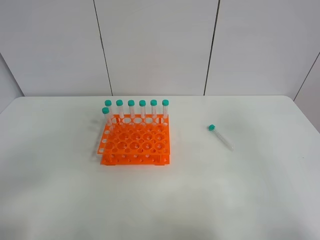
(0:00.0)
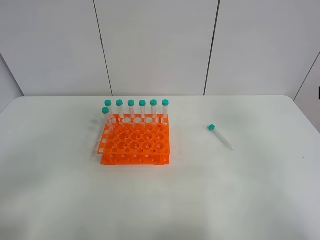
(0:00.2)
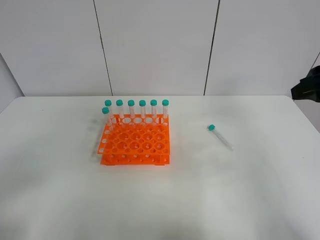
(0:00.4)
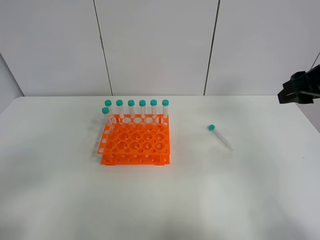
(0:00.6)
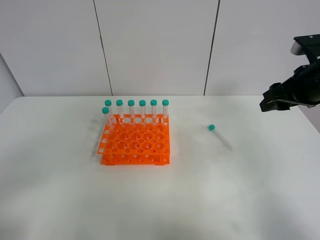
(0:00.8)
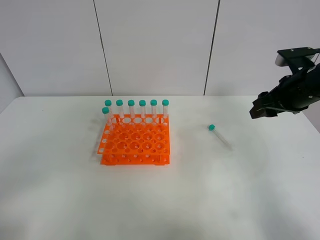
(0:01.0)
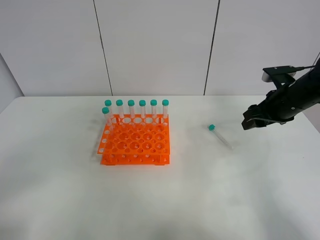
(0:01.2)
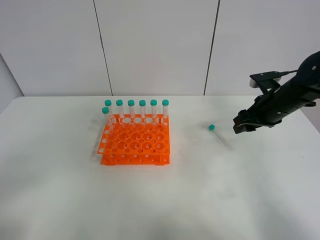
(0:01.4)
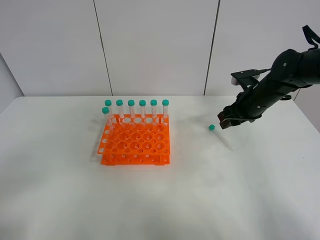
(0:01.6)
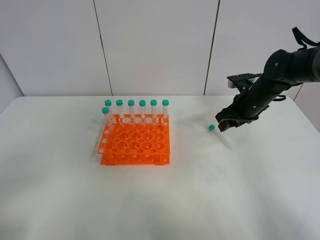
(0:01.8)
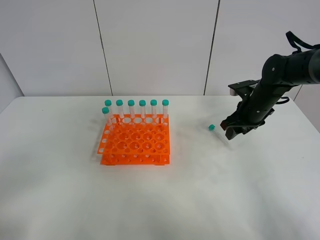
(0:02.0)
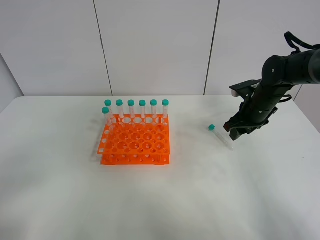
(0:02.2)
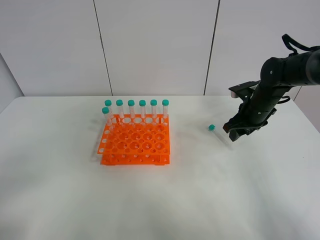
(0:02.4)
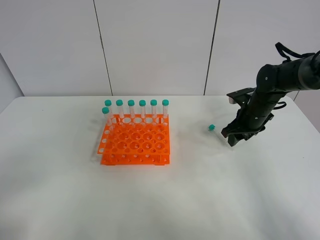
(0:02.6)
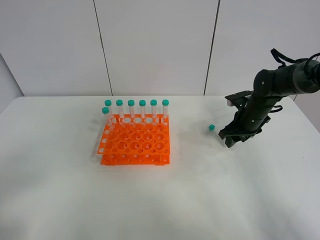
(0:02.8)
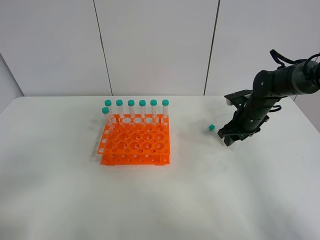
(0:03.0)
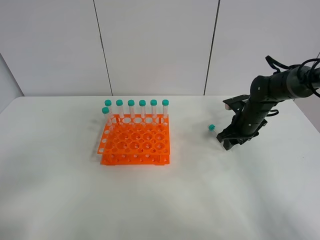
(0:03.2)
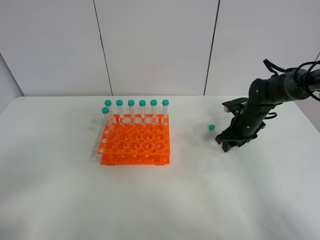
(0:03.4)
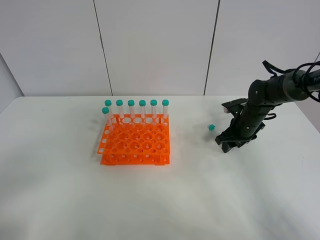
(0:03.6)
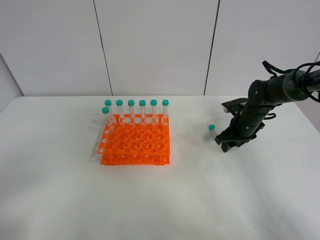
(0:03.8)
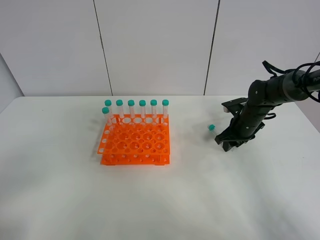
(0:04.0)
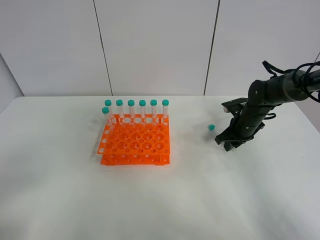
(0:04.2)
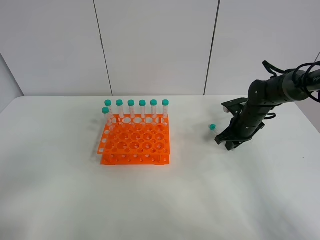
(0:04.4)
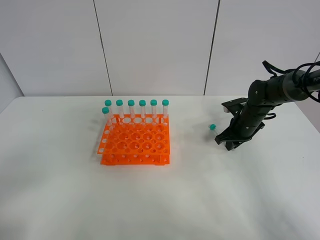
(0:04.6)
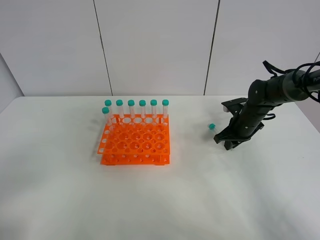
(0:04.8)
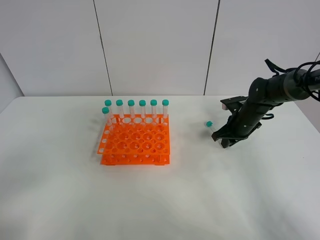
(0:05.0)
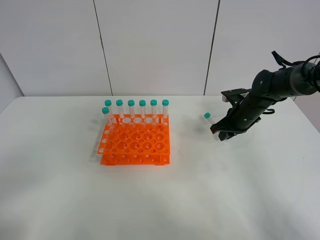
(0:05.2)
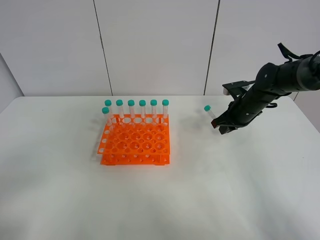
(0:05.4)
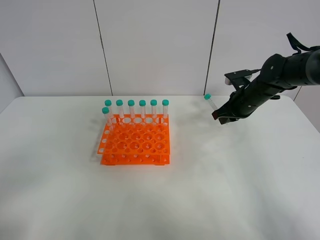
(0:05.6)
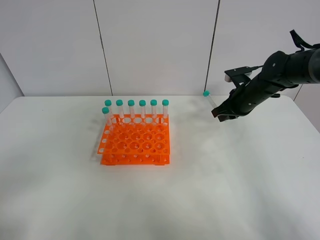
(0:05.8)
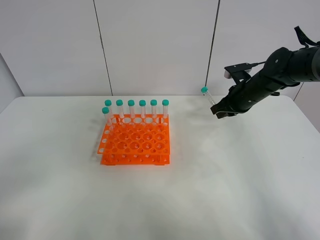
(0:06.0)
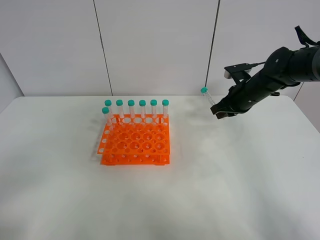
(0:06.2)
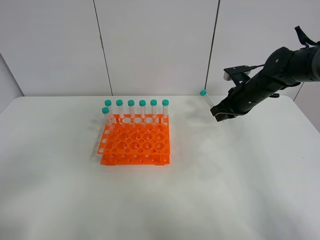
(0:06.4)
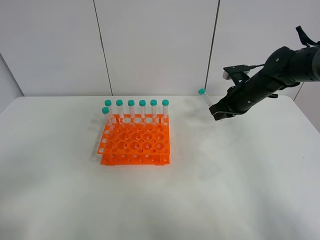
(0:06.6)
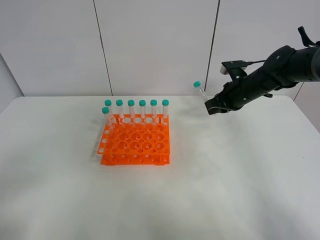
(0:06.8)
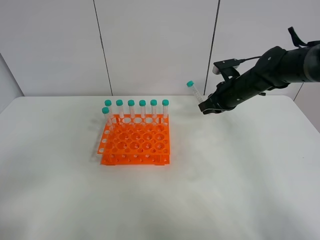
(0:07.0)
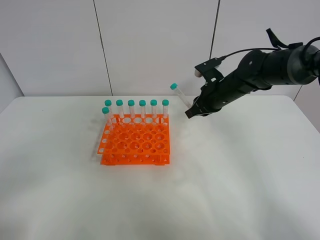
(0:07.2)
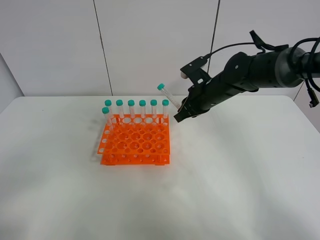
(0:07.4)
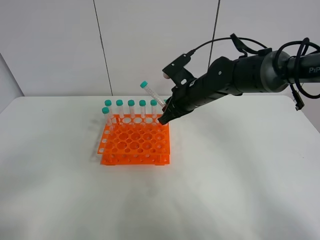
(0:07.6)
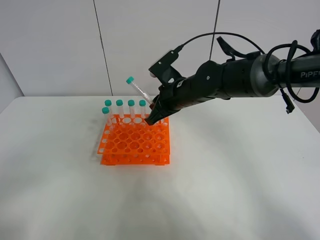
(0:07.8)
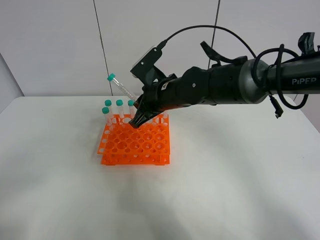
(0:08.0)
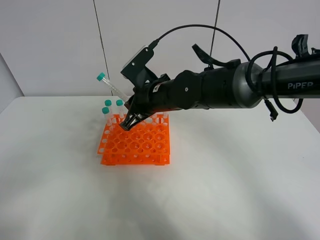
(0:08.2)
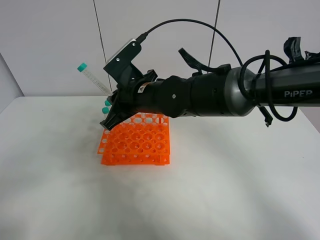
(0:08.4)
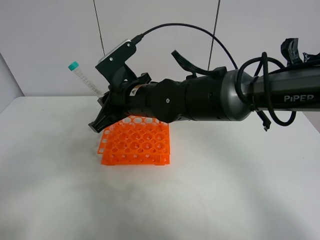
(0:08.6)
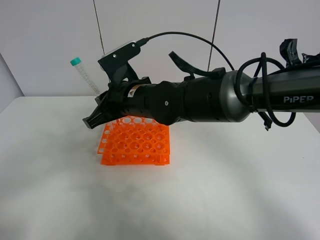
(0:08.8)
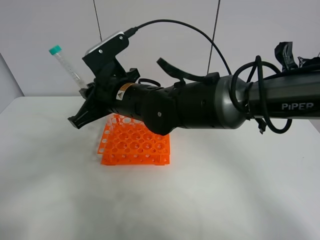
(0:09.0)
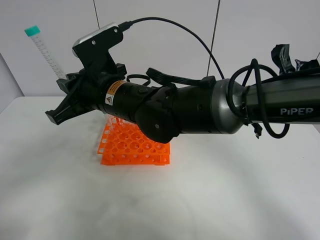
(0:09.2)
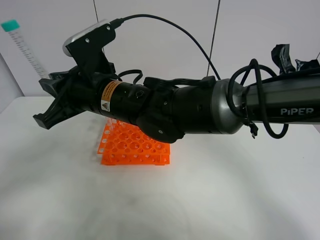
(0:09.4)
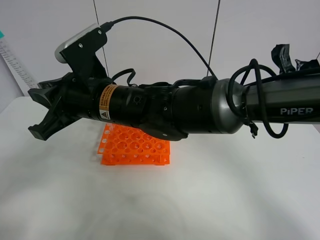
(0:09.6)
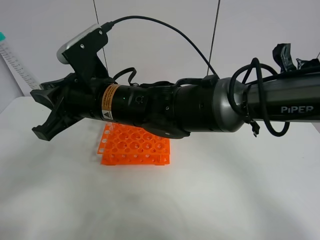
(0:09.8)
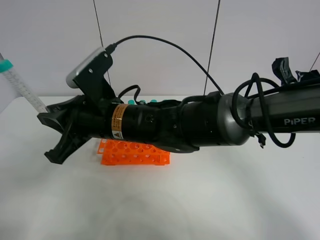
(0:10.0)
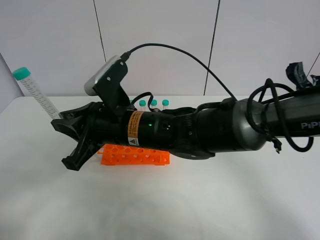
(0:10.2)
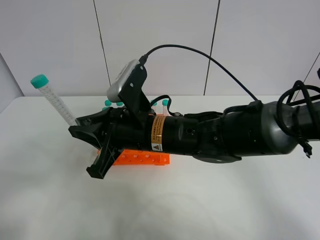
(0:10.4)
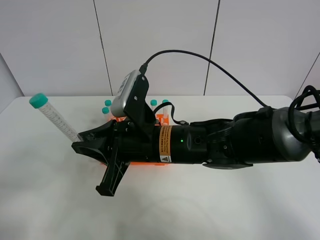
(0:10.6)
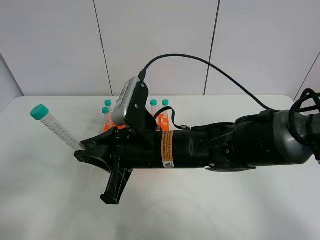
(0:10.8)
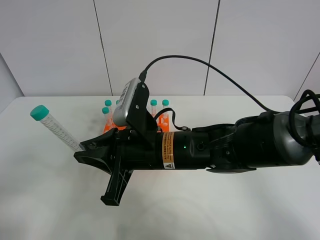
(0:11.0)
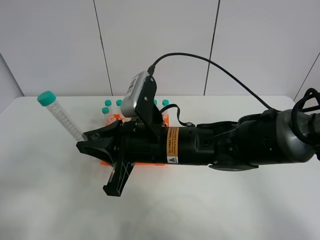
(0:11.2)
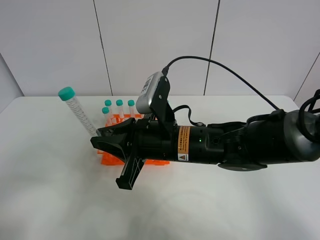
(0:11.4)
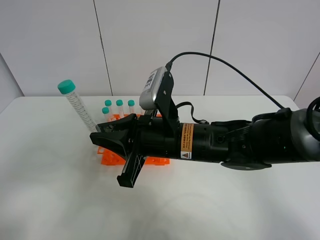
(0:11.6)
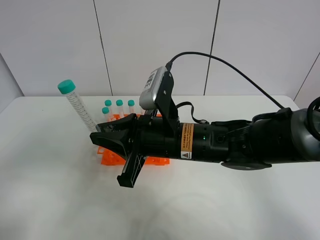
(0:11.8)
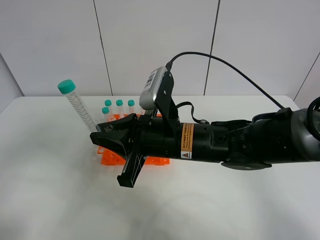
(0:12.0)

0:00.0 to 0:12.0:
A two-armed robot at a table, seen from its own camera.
Task of the whole recording: Put the test tube on the table back onto the test tube rack.
Step, 0:00.0 to 0:06.0: Pick up the test tube with the right gripper.
0:00.0 to 0:01.6: The right gripper shifts about 30 cm forward and downward.
0:01.6 to 0:03.0: The right gripper moves downward, approximately 5 cm.
0:03.0 to 0:04.4: The right gripper closes up.
0:04.4 to 0:06.0: The right gripper heads upward, covering some 10 cm.
0:06.0 to 0:07.6: The right gripper travels to the left by approximately 15 cm.
0:07.6 to 0:09.0: The right gripper goes about 15 cm to the left and backward.
0:09.0 to 0:10.4: The right gripper goes roughly 5 cm backward.
0:10.4 to 0:12.0: The left gripper heads upward and forward, covering about 10 cm.

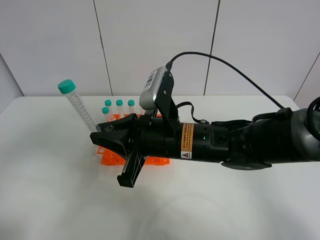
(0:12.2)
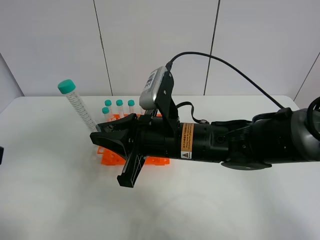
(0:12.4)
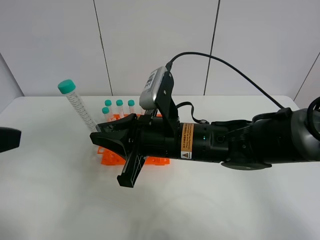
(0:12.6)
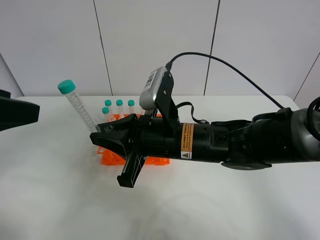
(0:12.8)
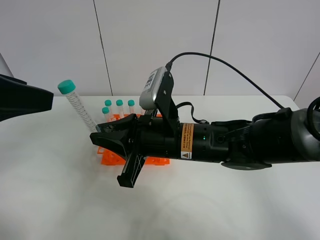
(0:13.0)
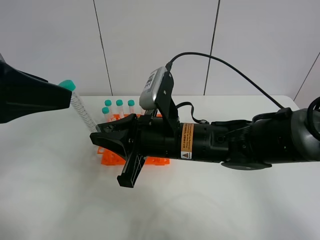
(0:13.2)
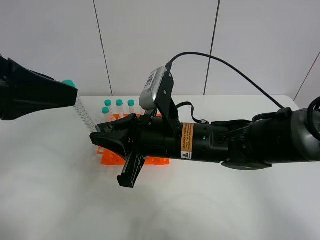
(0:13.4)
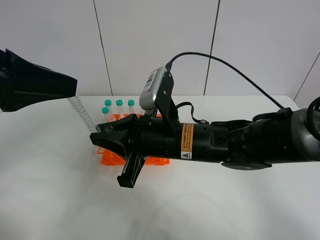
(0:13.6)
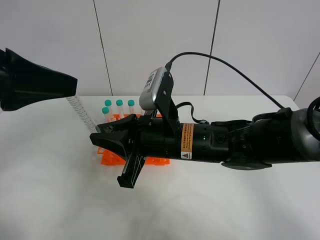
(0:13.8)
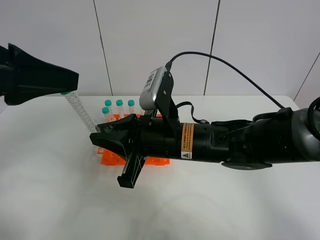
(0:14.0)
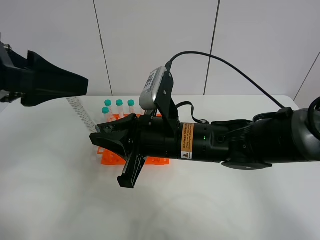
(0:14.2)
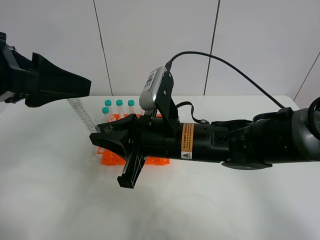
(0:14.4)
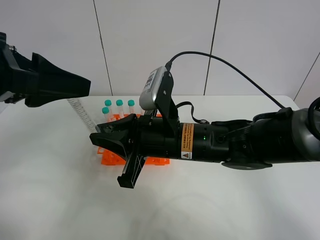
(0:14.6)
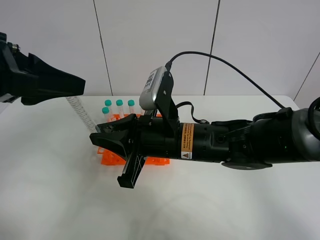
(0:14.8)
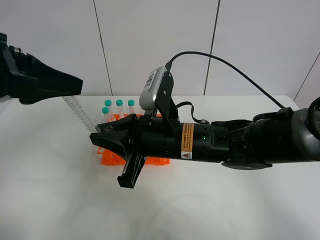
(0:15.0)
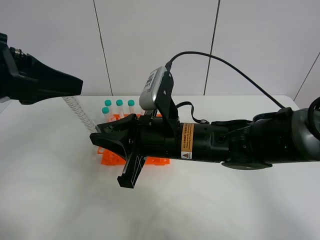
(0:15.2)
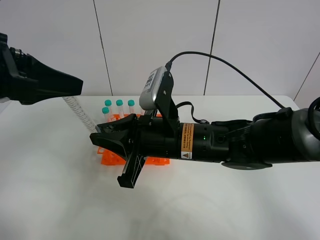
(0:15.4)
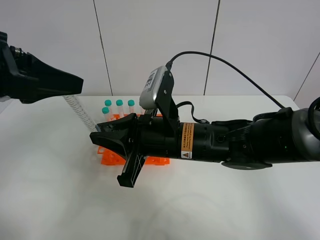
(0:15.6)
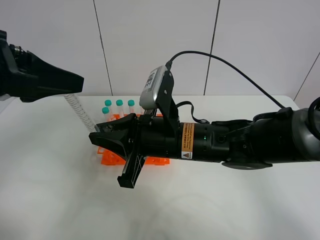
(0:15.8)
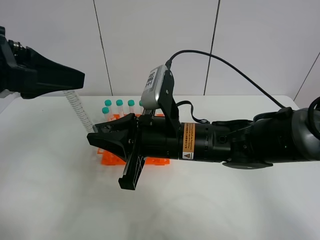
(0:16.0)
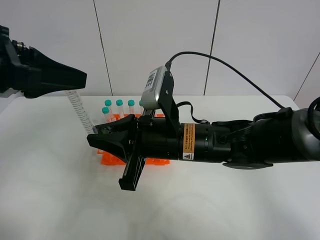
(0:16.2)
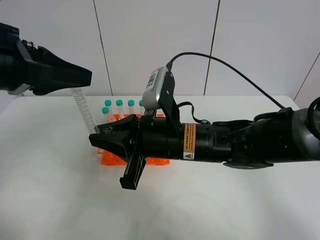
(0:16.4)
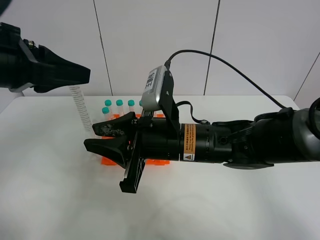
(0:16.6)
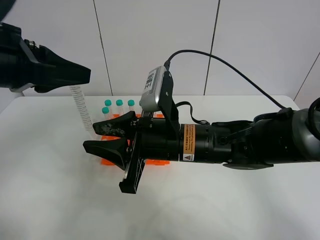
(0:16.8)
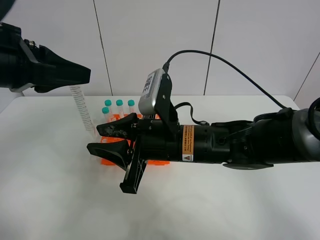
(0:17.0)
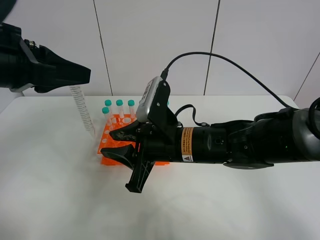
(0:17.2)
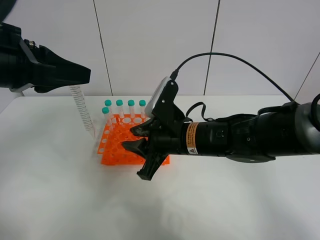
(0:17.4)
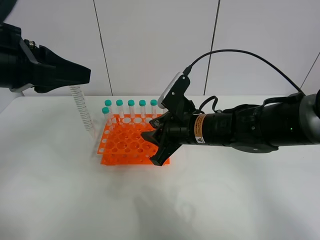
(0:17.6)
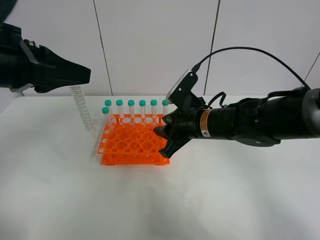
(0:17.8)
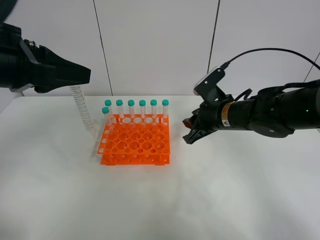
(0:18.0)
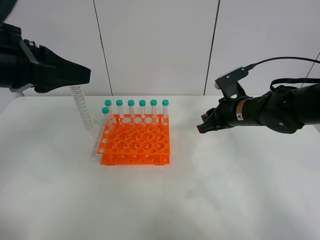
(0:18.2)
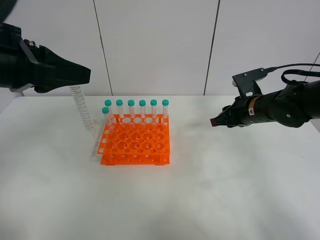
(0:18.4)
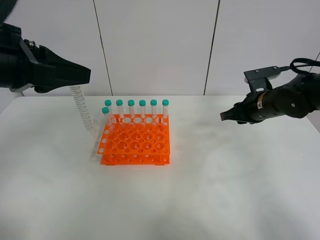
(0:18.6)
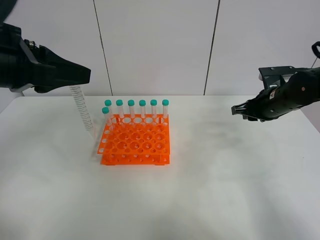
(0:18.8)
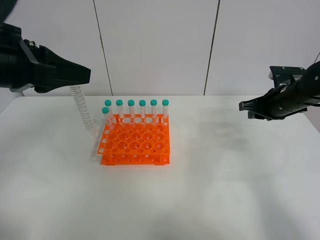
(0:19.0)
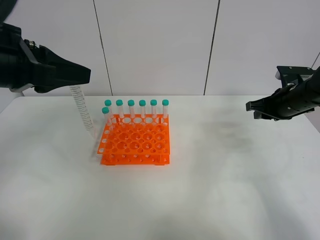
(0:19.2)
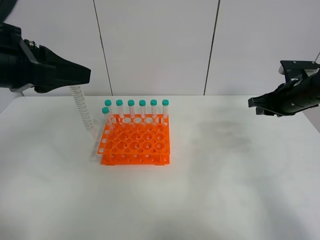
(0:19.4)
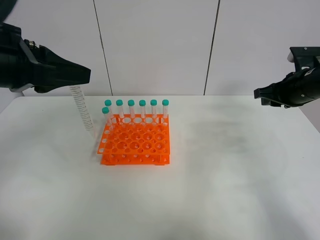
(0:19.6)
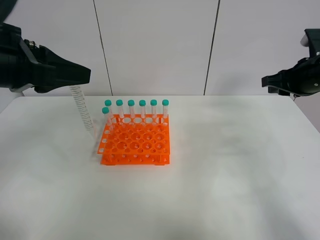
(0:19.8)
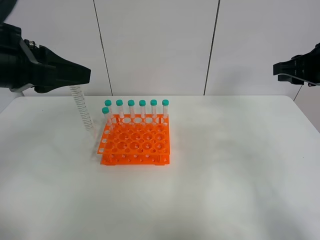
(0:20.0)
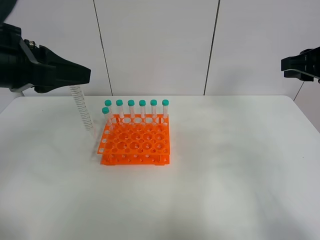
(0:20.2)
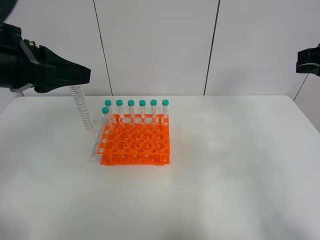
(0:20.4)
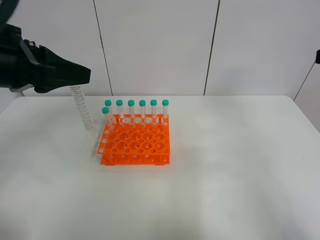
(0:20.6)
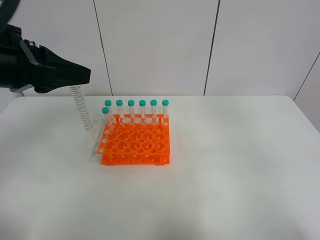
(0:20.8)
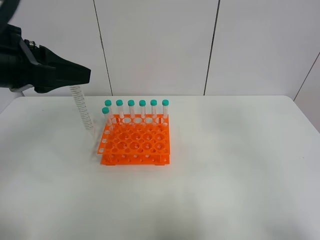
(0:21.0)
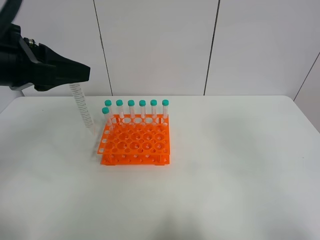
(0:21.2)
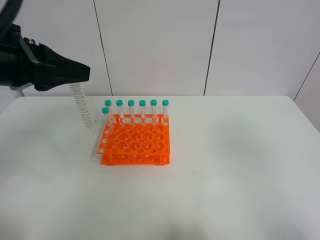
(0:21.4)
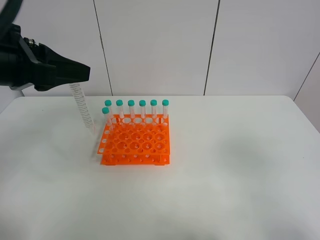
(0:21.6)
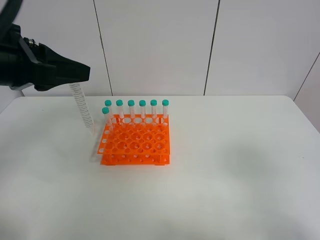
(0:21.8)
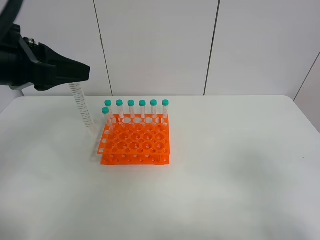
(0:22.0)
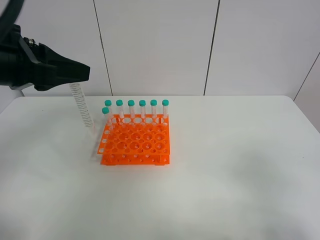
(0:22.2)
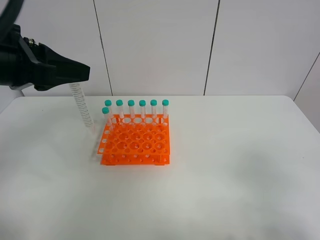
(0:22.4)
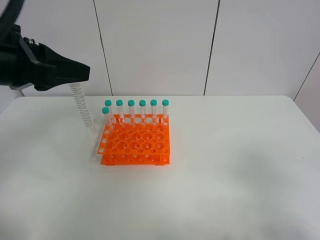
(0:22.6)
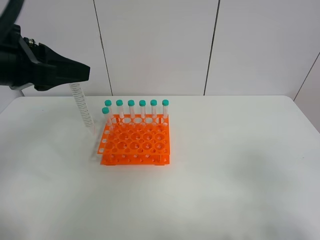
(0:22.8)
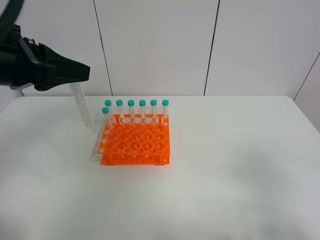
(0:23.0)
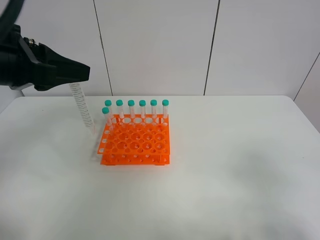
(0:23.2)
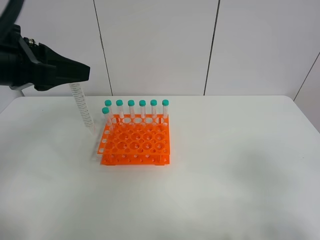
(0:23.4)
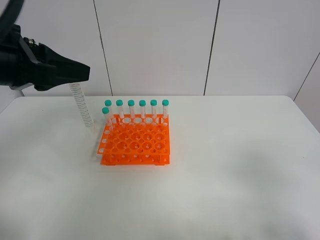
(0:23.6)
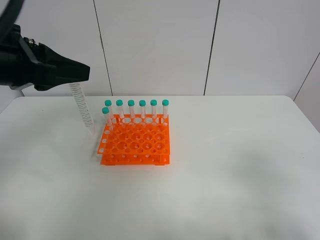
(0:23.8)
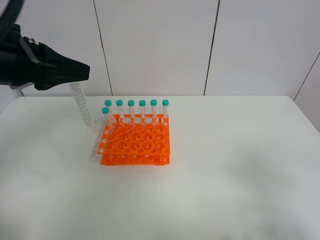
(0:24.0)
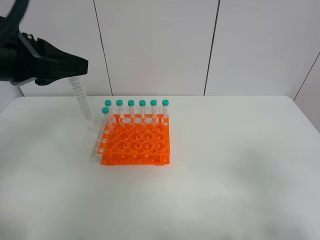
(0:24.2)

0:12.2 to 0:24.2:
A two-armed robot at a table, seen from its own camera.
Task of the whole recording: Put the test tube on the table back onto the test tube rack.
Step, 0:12.2 to 0:17.4: Move the test tube from the right gripper to the left gripper.
0:12.2 to 0:13.8: The left gripper shifts about 10 cm forward and to the right.
0:13.8 to 0:15.2: The left gripper closes.
0:15.2 to 0:16.6: The right gripper opens up.
0:16.6 to 0:18.2: The right gripper is displaced to the right and forward by approximately 20 cm.
0:18.2 to 0:19.8: The right gripper heads to the right and upward, covering about 15 cm.
0:19.8 to 0:21.2: The right gripper heads backward and upward, covering about 35 cm.
0:22.6 to 0:24.2: The two grippers keep their place.
